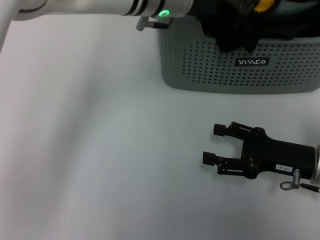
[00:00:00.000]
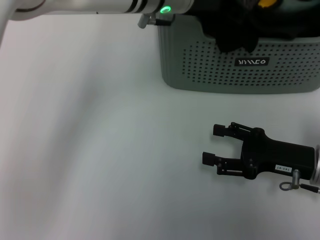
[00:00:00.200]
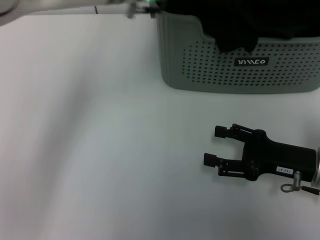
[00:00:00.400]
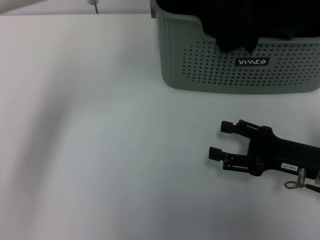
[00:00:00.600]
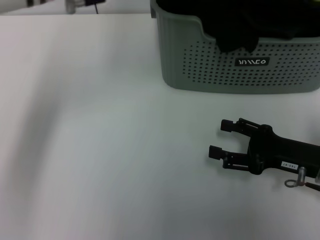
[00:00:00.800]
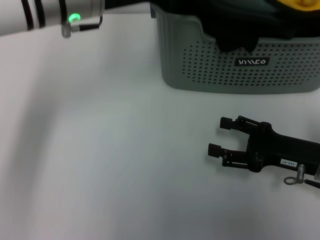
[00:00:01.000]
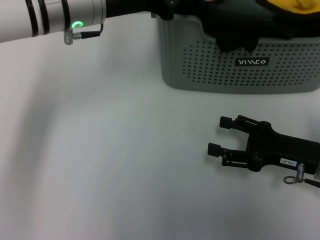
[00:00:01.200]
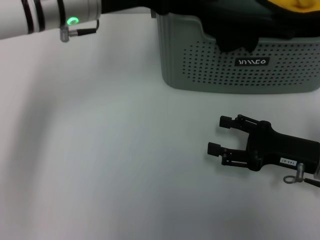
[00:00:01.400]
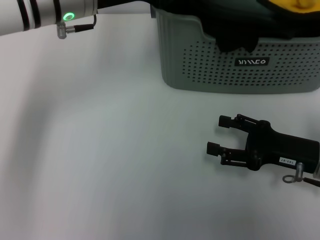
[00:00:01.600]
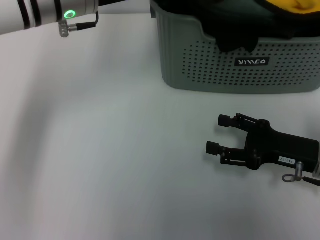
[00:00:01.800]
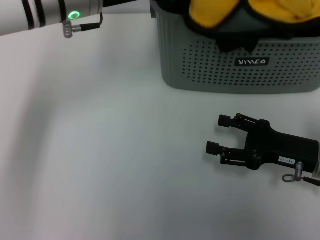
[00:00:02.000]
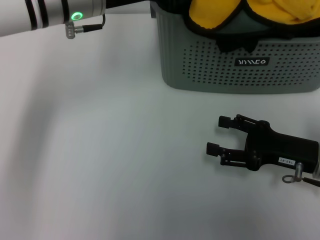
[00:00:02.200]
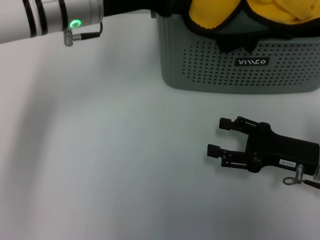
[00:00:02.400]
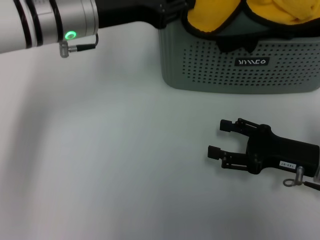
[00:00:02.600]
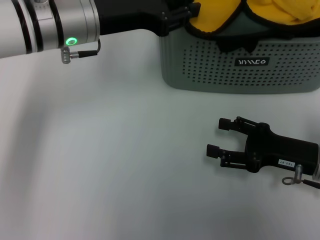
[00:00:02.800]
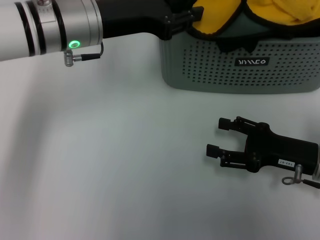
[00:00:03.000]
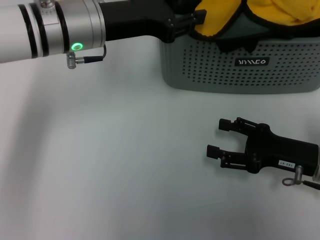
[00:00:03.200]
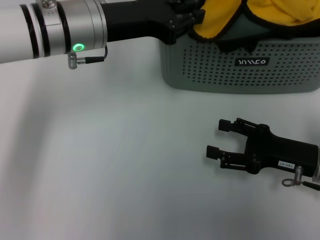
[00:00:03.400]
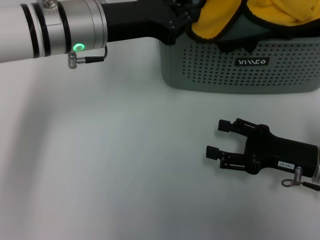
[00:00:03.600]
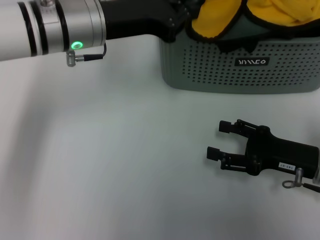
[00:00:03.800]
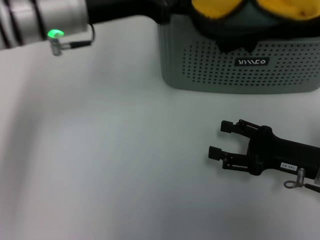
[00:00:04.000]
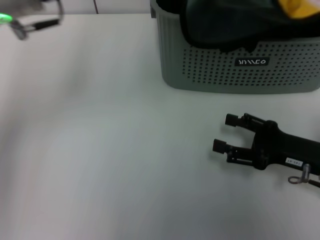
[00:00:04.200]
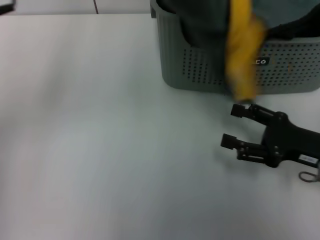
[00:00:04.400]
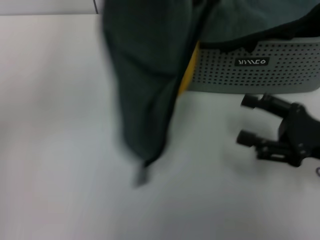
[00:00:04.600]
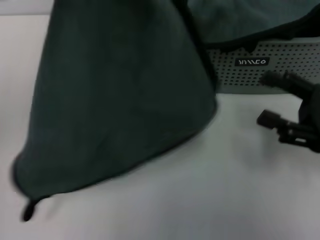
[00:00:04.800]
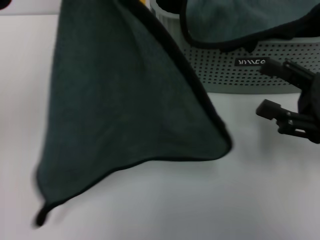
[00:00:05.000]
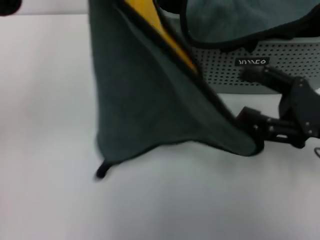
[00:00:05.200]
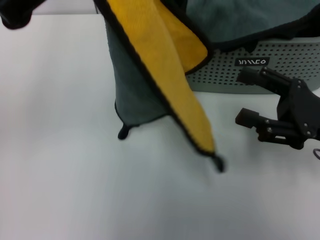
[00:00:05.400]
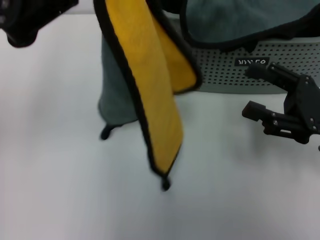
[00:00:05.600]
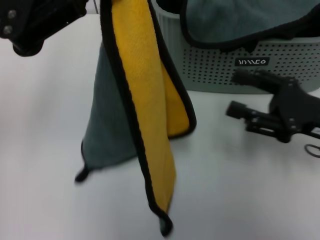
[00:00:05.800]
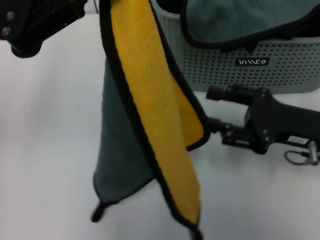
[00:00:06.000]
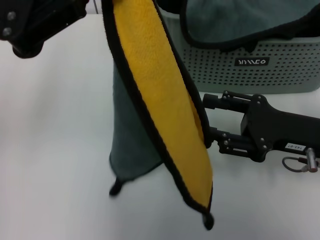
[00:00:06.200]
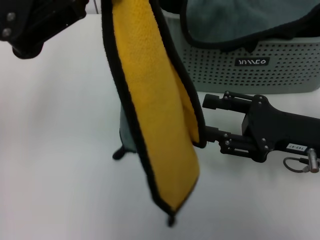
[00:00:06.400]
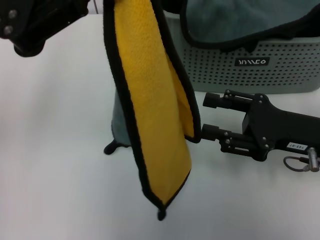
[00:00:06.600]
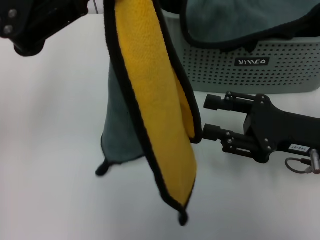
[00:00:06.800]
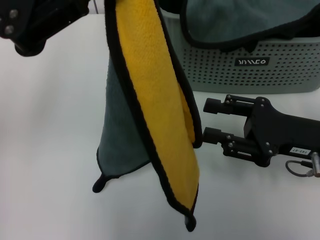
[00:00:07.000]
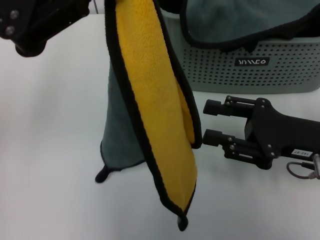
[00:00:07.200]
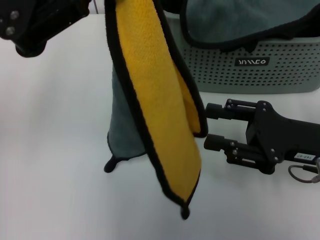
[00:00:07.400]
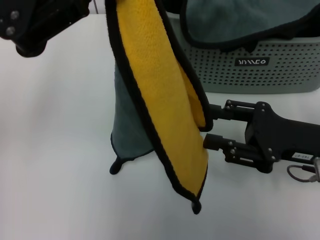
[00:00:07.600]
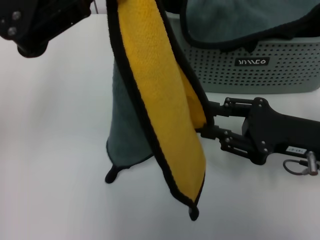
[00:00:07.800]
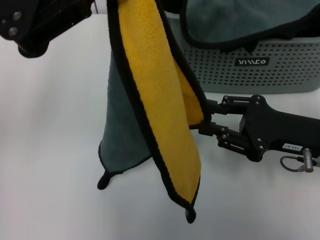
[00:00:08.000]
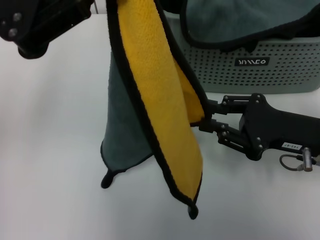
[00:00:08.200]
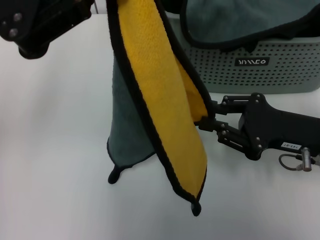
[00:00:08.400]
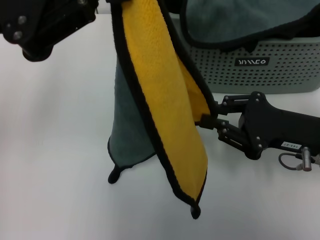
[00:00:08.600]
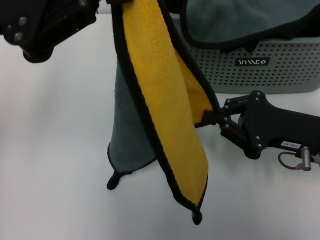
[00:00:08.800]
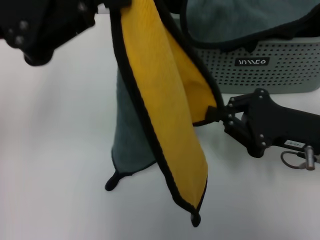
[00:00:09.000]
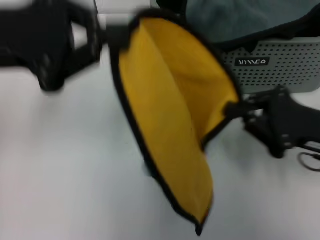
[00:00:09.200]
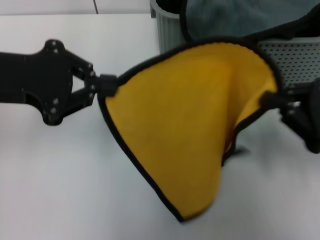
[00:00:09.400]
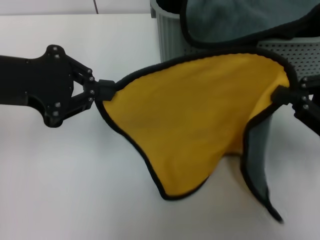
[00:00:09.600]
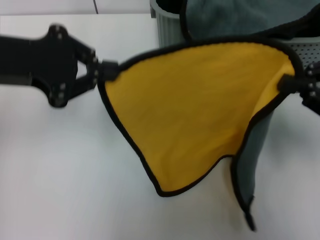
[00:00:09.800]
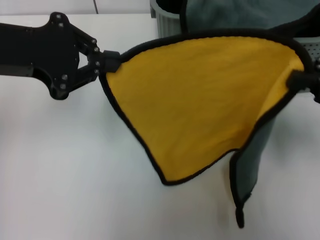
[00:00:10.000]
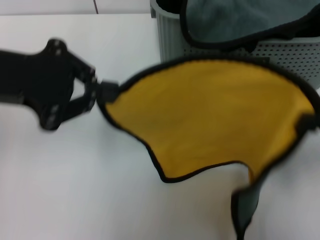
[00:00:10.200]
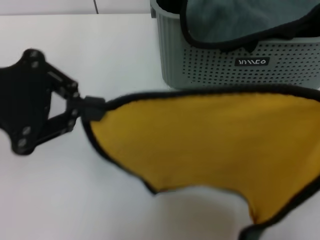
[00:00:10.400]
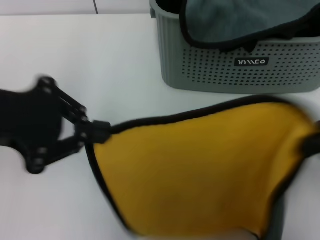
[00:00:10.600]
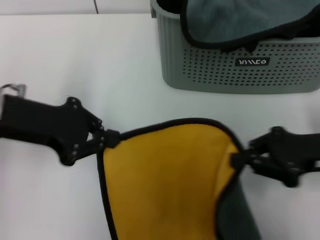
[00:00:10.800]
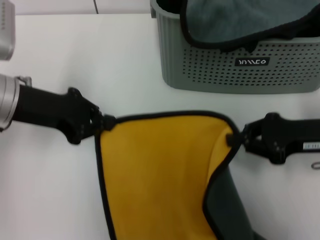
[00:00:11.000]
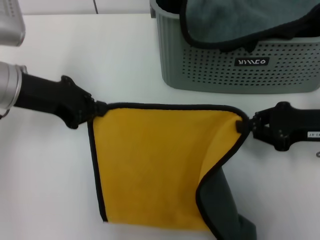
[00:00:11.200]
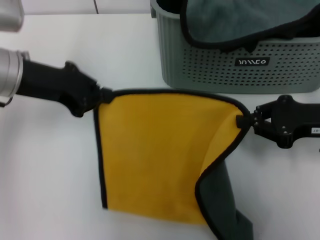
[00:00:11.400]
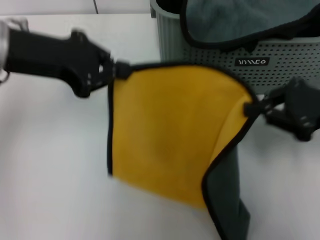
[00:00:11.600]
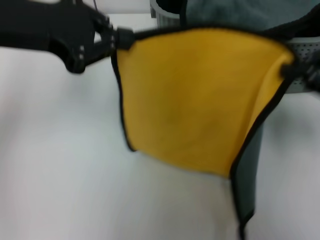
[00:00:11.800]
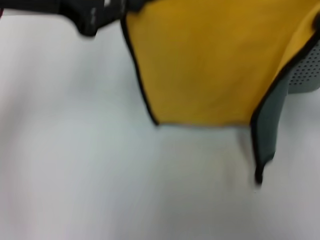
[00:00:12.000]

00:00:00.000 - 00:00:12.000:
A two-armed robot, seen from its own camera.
Task of the whole recording: pick up the towel from the storage box and lay it flat on the table.
Step, 00:00:00.000 - 00:00:03.800: Pick up a towel with the left gripper.
Step, 00:00:04.000 - 00:00:08.600: Spread the towel flat with the left gripper.
00:00:00.000 - 00:00:01.600: The left gripper goes roughly 10 cm to the left.
00:00:01.600 - 00:00:03.000: The grippers move only a little.
00:00:03.000 - 00:00:04.400: The left gripper shifts roughly 15 cm upward, to the left and backward, and closes its fingers.
00:00:04.400 - 00:00:06.000: The right gripper changes place by approximately 5 cm.
00:00:07.600 - 00:00:09.000: The right gripper closes up.
00:00:09.000 - 00:00:10.400: The right gripper is displaced upward and to the right by approximately 15 cm.
00:00:10.400 - 00:00:12.000: The right gripper is displaced forward by approximately 5 cm, and reaches about 10 cm downward, then returns. Meanwhile the left gripper moves forward and to the right, approximately 10 cm, and goes downward and returns, approximately 10 cm each way.

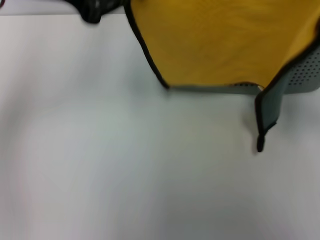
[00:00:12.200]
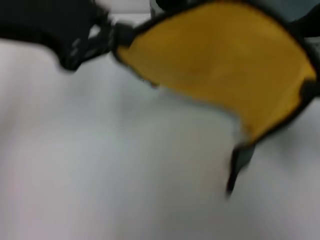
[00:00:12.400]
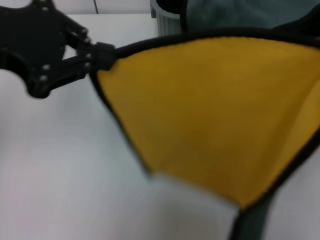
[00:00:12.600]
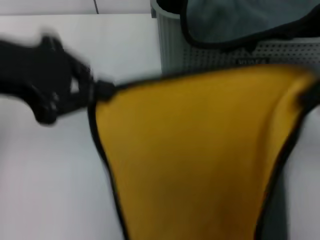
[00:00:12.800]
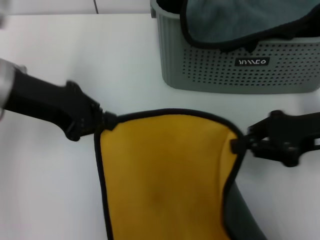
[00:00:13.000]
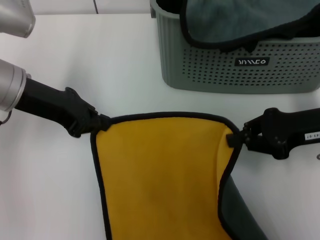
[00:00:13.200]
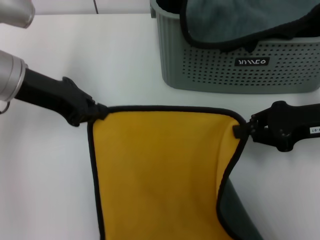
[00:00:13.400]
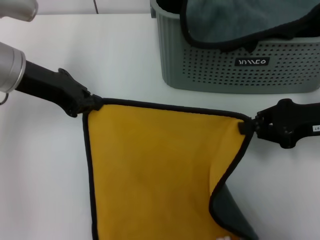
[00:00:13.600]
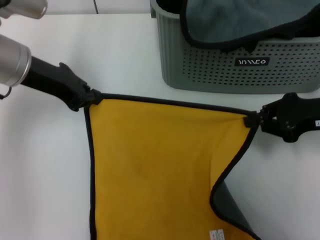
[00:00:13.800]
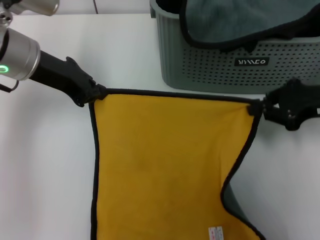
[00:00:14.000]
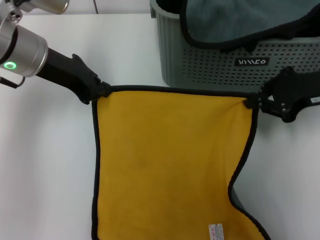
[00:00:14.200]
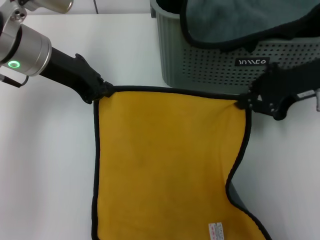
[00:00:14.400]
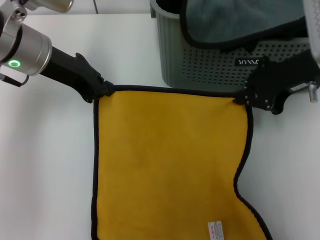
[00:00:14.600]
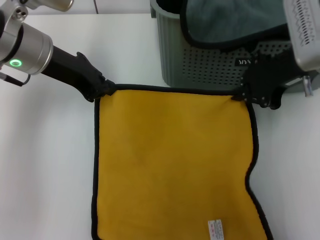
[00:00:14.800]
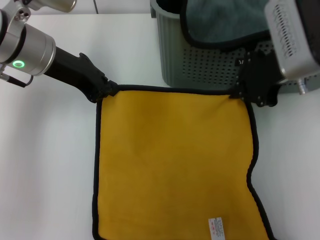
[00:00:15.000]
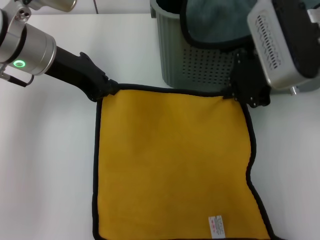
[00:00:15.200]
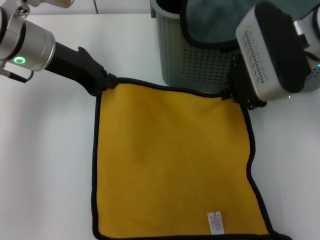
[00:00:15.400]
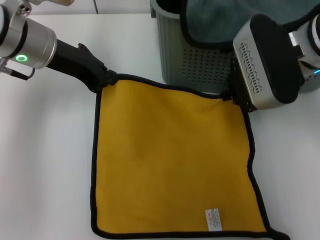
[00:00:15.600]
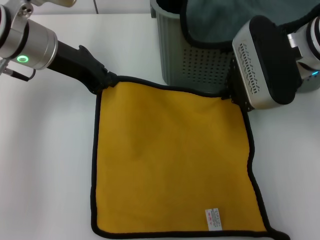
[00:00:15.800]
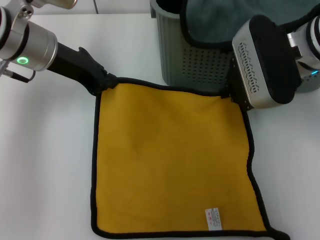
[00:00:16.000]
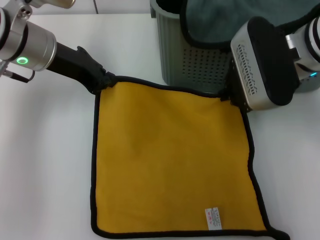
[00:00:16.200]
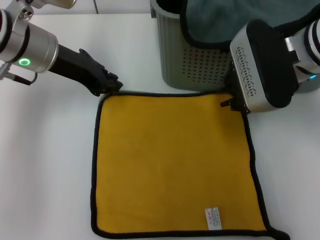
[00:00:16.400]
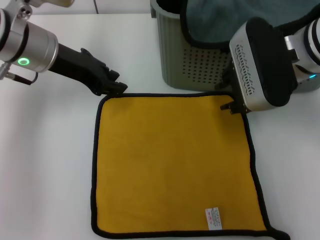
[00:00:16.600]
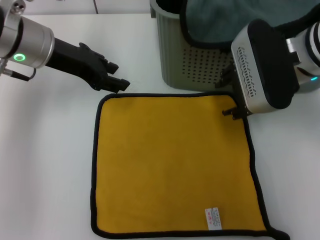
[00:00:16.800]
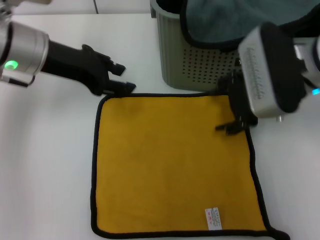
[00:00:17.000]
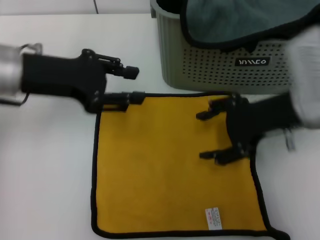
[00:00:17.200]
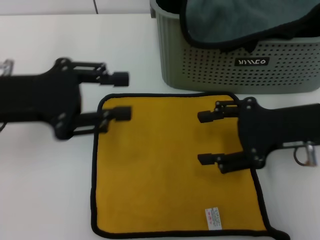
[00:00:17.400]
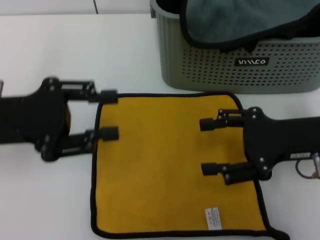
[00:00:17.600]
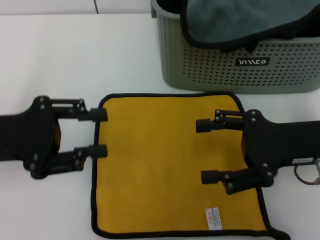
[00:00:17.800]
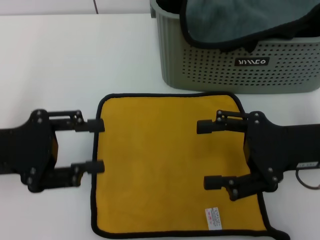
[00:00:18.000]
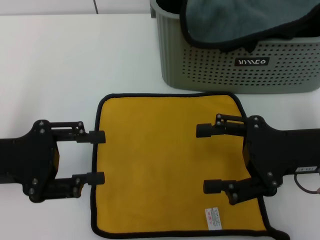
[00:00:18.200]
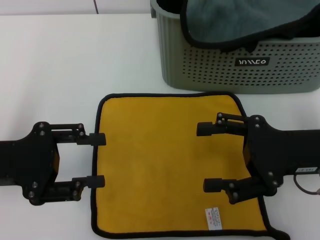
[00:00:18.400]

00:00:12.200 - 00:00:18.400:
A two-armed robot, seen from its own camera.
Task of the whole recording: pick up the towel from the storage box and lay it flat on the table.
Step, 00:00:12.200 - 00:00:16.400: Spread the towel flat with the right gripper.
00:00:12.200 - 00:00:13.800: Both grippers travel together downward, about 10 cm.
00:00:13.800 - 00:00:15.400: The right gripper goes about 15 cm to the left and upward.
00:00:15.400 - 00:00:16.800: There are only small adjustments of the grippers.
00:00:16.800 - 00:00:18.400: The right gripper goes about 15 cm backward, to the right and downward, and opens up; the left gripper shifts roughly 15 cm backward and to the left.
